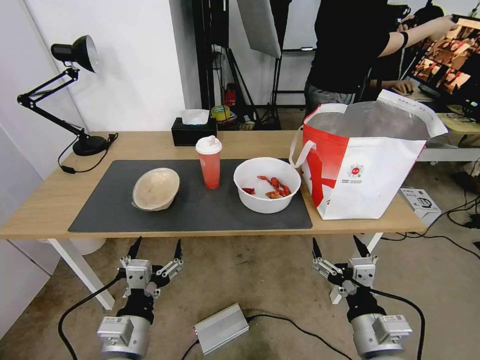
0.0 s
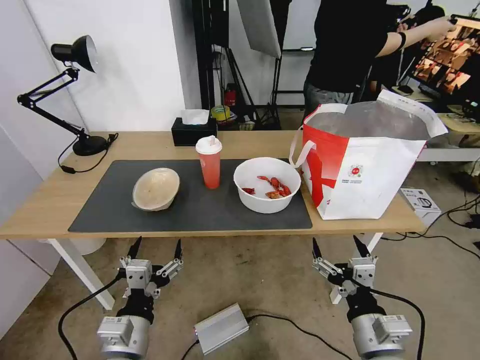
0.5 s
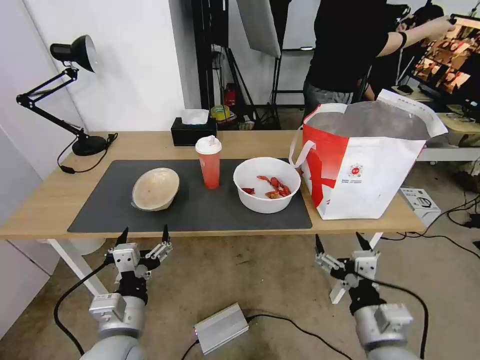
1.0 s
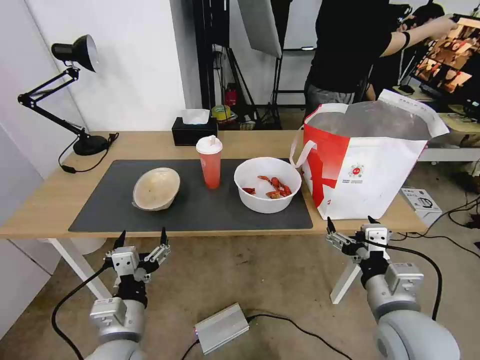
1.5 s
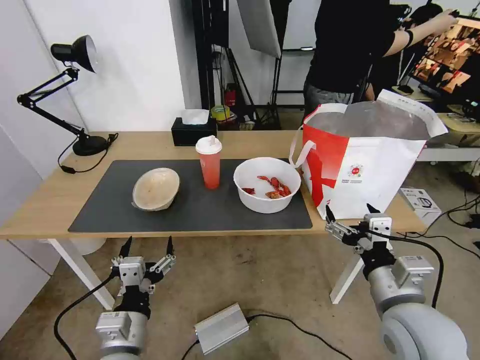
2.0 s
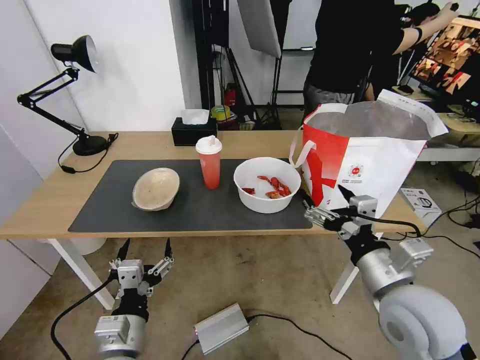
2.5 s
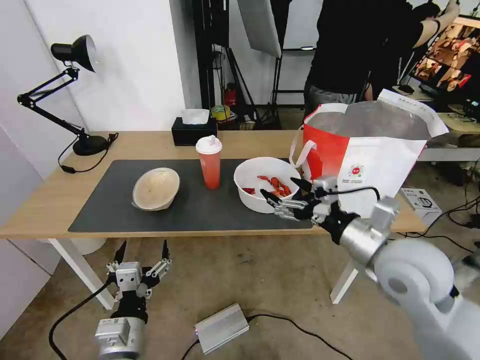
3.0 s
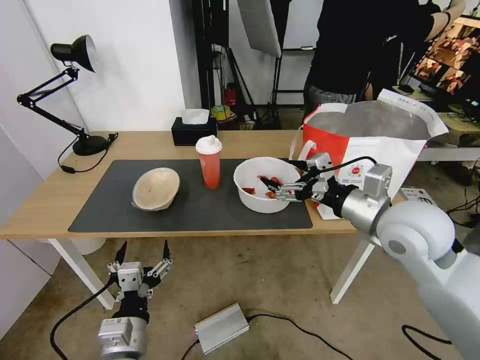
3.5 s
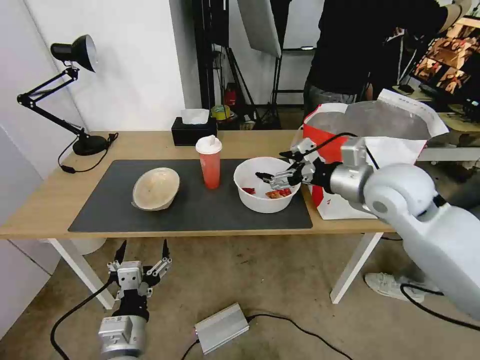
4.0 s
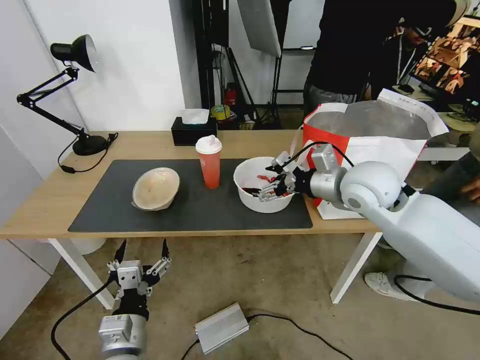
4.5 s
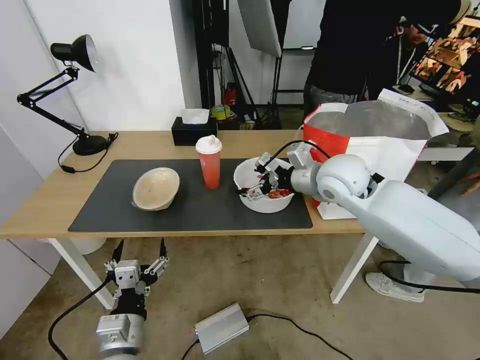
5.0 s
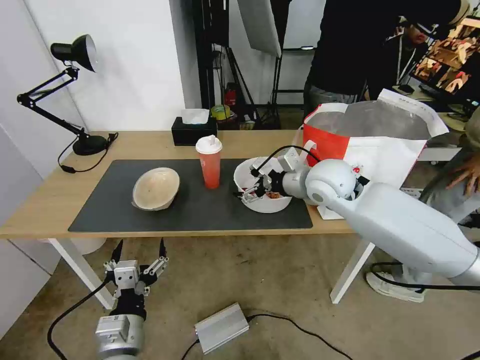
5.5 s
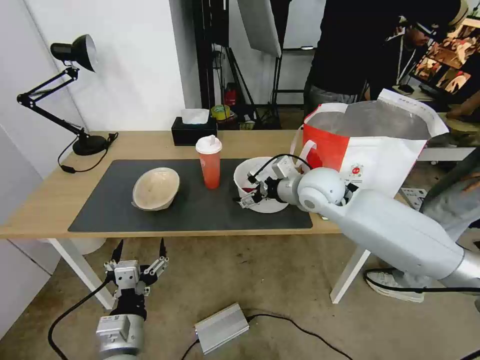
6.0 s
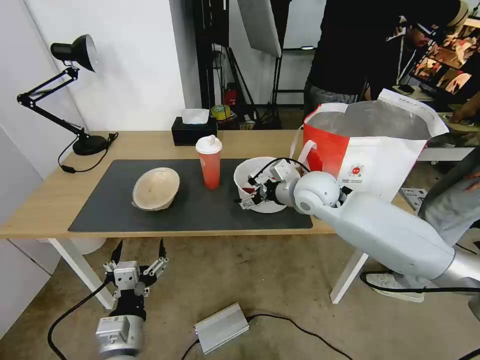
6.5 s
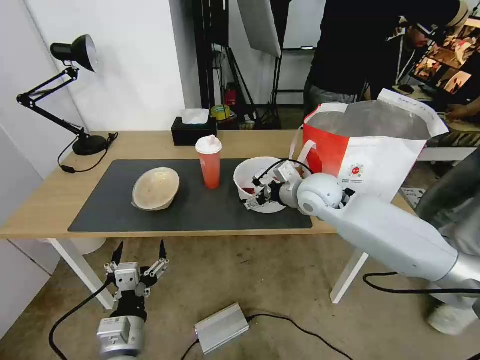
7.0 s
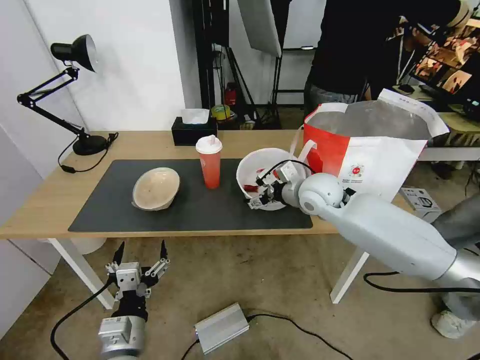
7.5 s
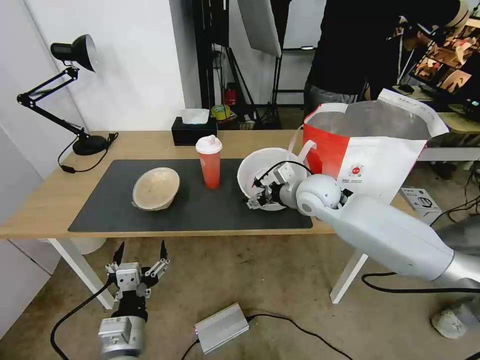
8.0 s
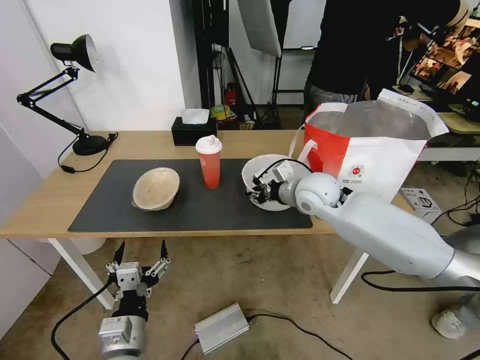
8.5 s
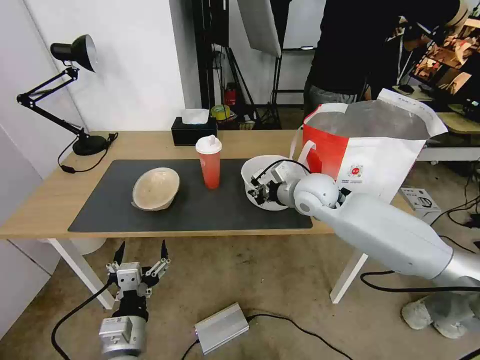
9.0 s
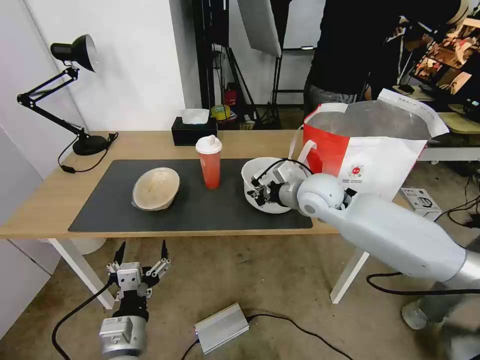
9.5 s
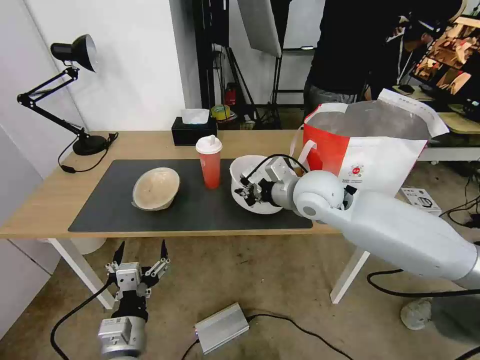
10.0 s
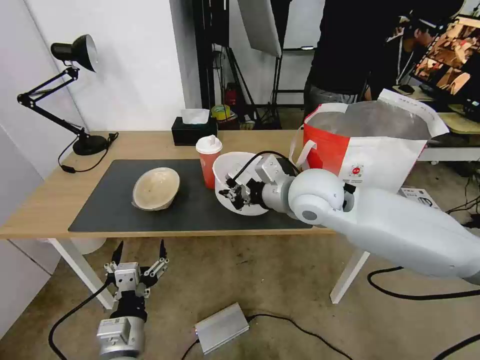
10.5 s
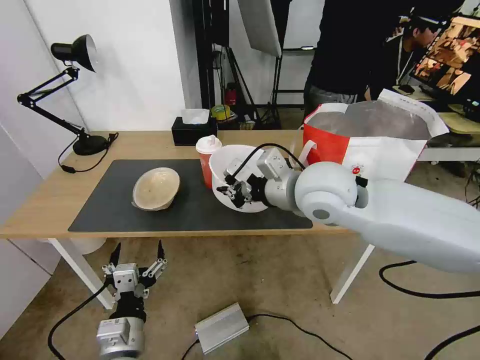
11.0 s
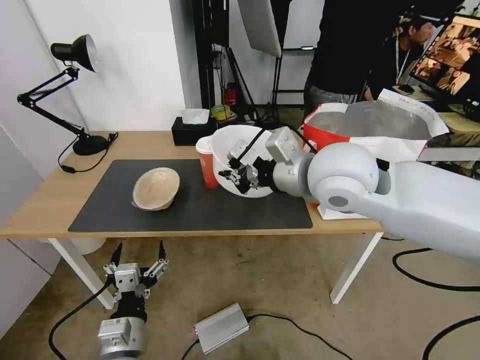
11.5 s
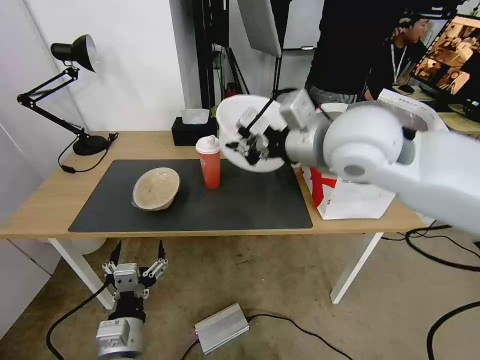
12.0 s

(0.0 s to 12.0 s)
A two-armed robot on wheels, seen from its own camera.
Task of the whole recording: Pick up the trash from the table and place it into the takeout bag.
2.0 s - 4.0 s: The right gripper moves forward and upward, about 25 cm.
4.0 s - 6.0 s: The right gripper shifts about 15 cm to the left, forward and downward.
6.0 s - 8.0 s: The grippers stay close to where they were, moving slightly.
8.0 s - 10.0 s: The right gripper shifts about 5 cm upward, and closes its fingers.
10.0 s - 12.0 s: The right gripper moves upward, roughly 15 cm.

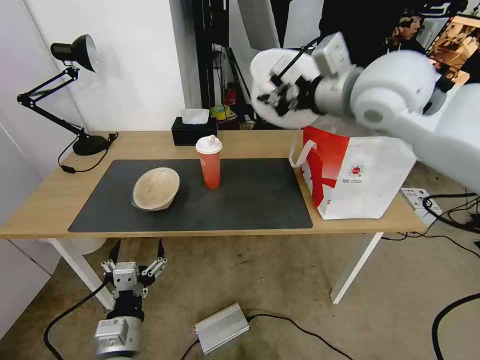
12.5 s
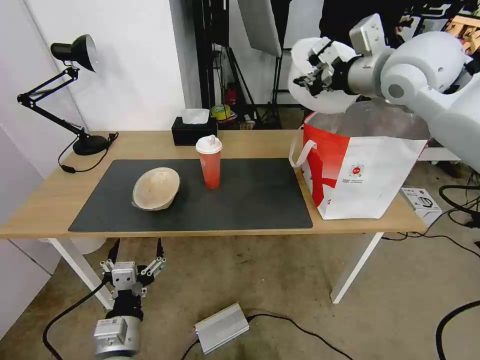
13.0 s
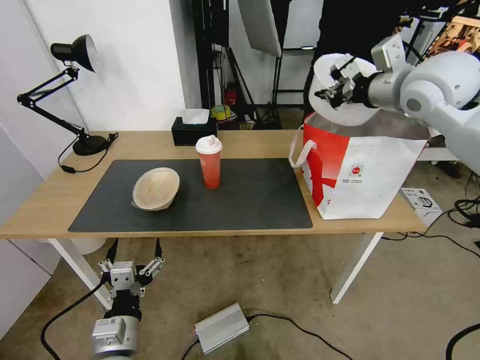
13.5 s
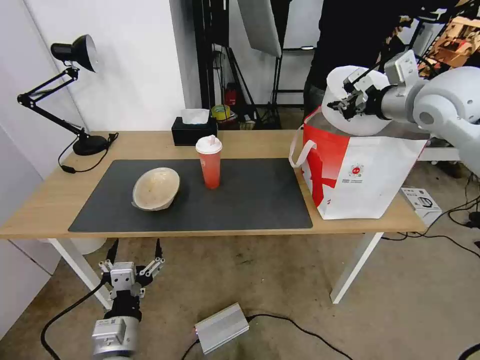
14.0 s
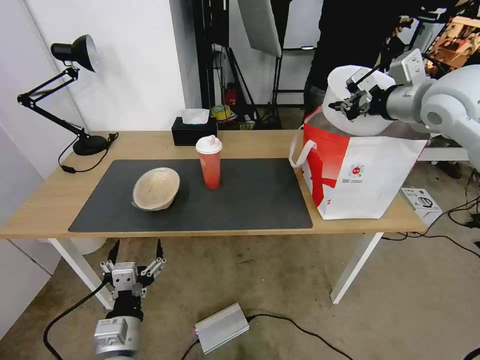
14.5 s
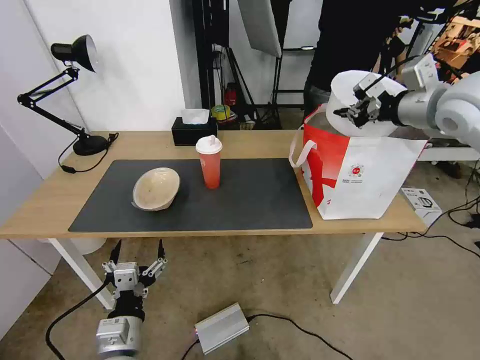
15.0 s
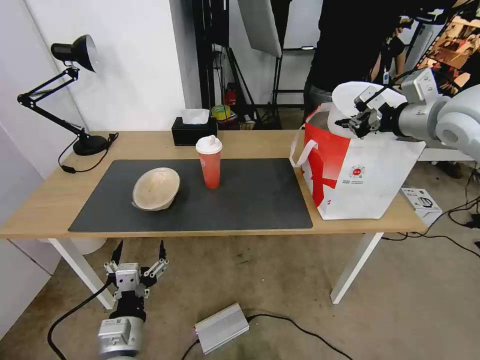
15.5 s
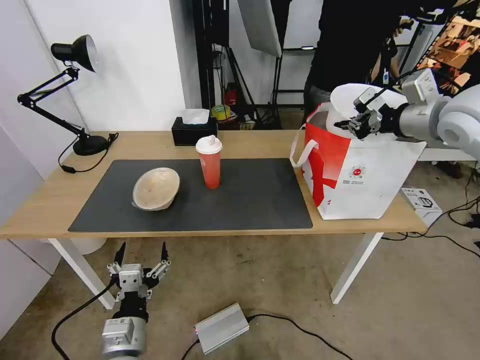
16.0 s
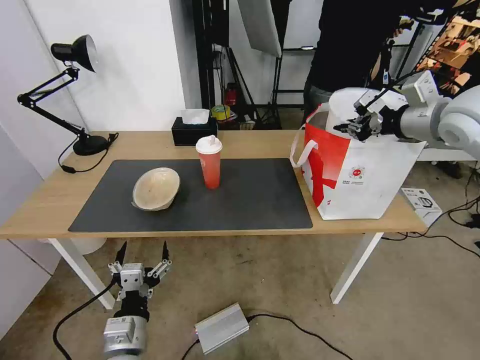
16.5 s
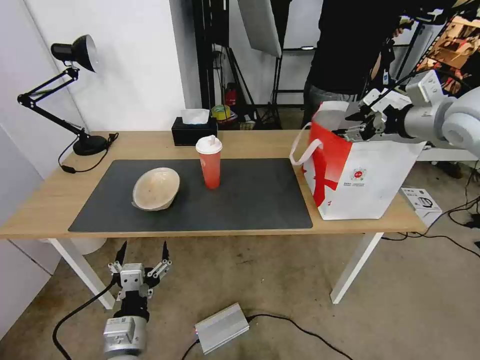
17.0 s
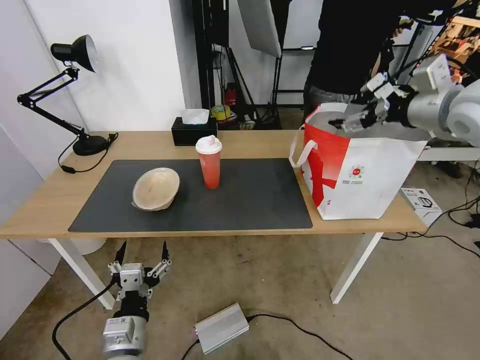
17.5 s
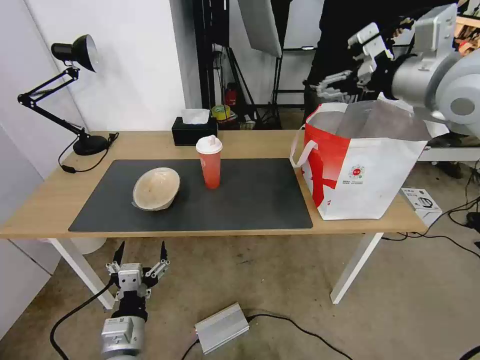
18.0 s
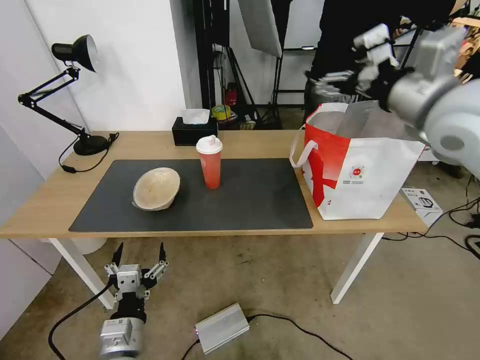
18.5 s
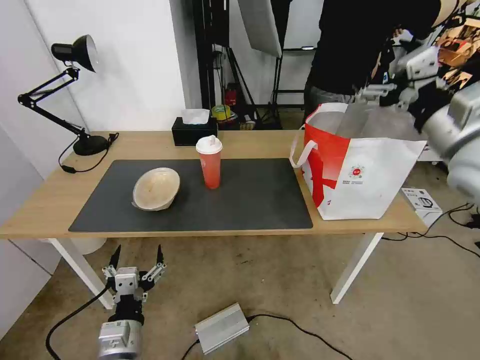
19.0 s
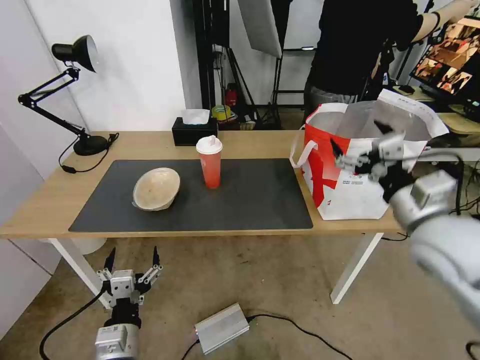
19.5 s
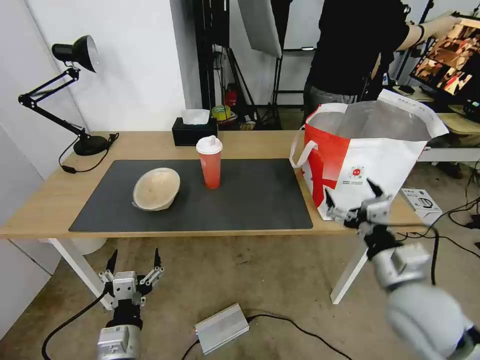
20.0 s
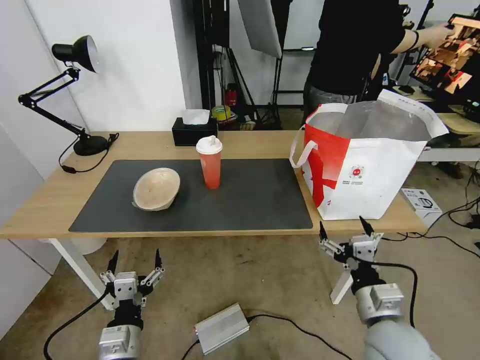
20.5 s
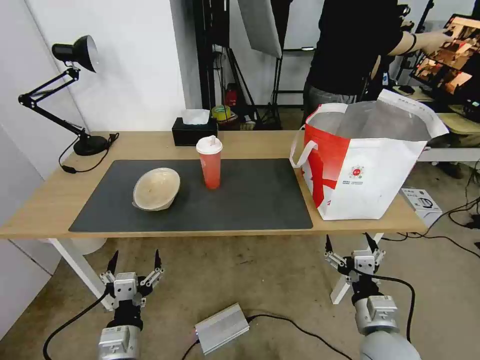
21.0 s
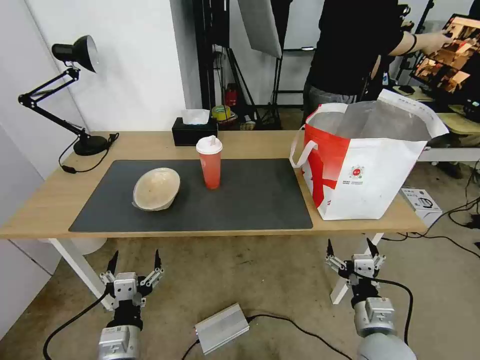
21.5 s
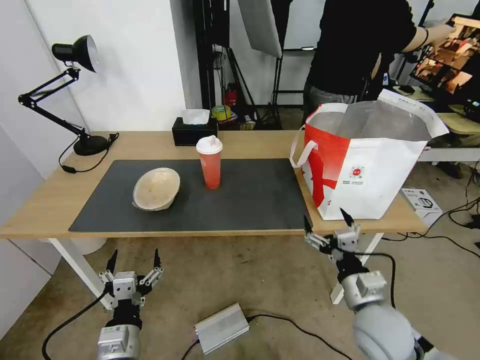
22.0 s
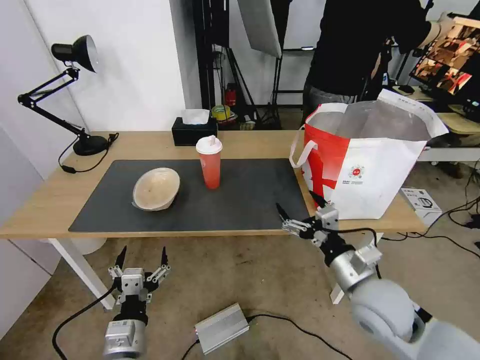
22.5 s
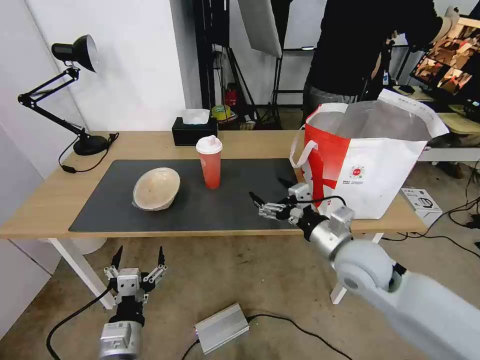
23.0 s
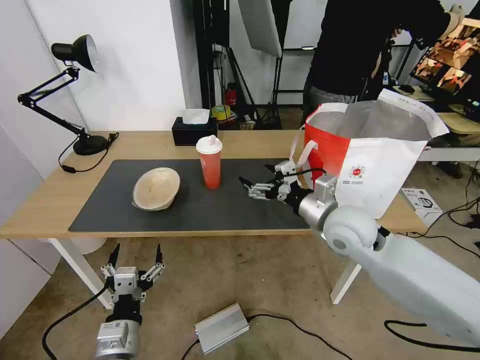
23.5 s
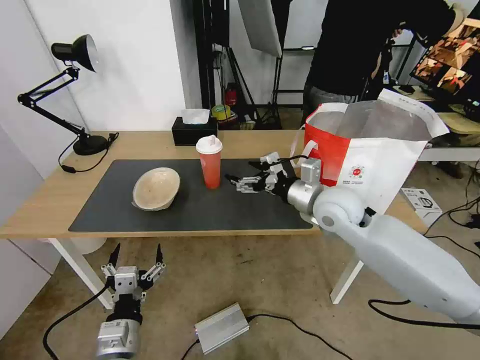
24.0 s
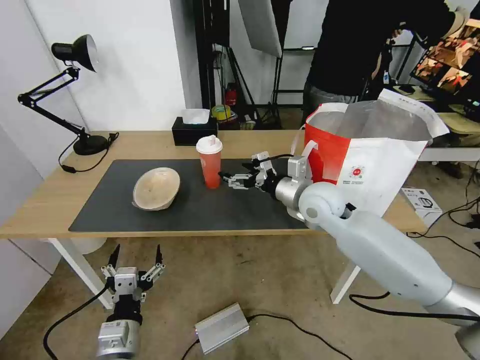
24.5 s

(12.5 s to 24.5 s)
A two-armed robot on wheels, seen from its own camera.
Task of the whole recording: Pick up the trash from the table and place it into the takeout bag.
12.5 s - 14.5 s: The right gripper goes roughly 15 cm to the right.
14.5 s - 16.5 s: There are only small adjustments of the grippers.
16.5 s - 18.5 s: The right gripper goes about 10 cm to the left and backward, and opens.
18.5 s - 20.5 s: The right gripper heads downward and backward, covering about 40 cm.
20.5 s - 22.5 s: The right gripper moves forward, approximately 5 cm.
22.5 s - 24.5 s: The right gripper moves forward, roughly 20 cm.

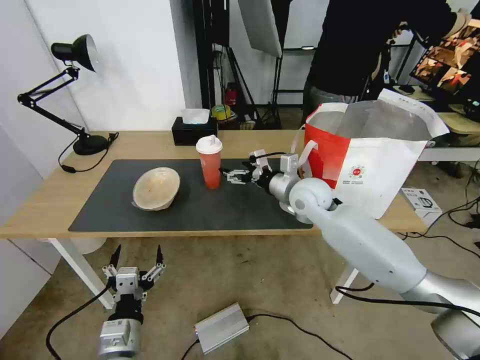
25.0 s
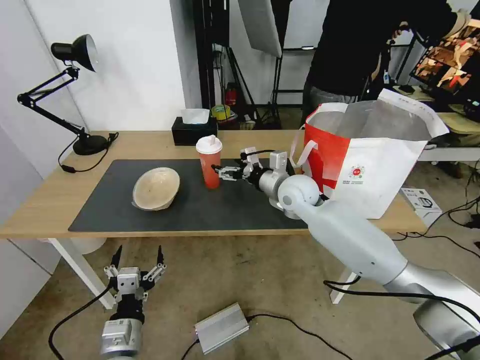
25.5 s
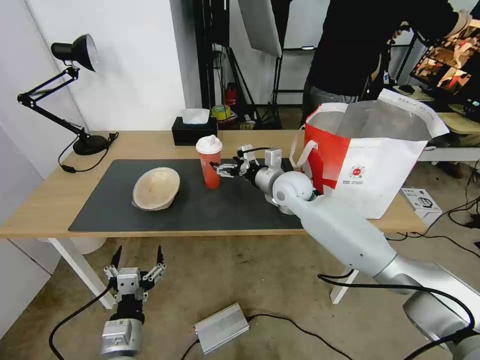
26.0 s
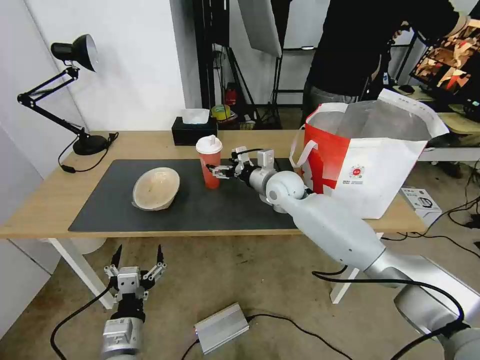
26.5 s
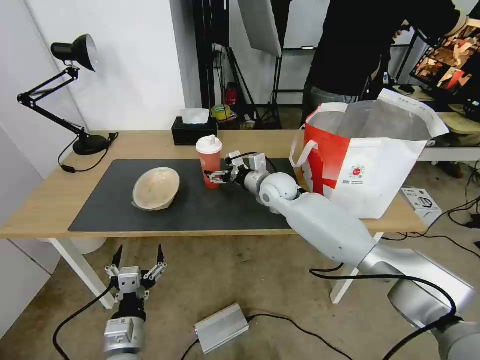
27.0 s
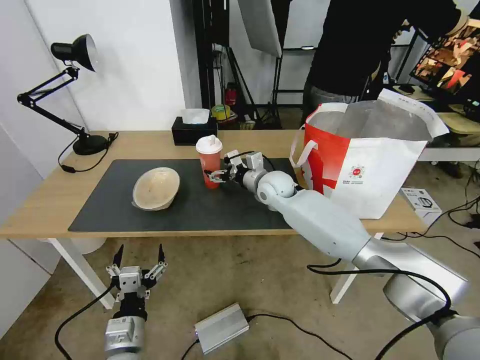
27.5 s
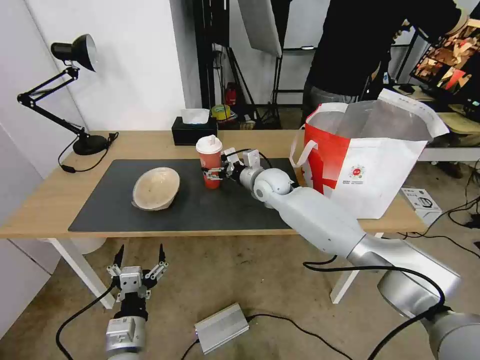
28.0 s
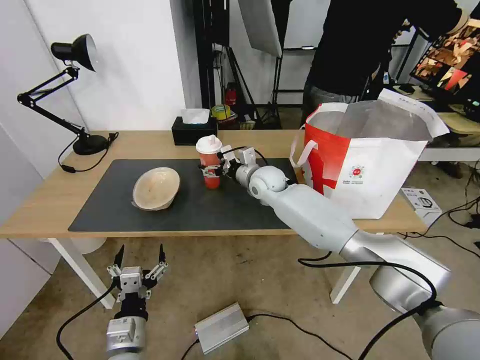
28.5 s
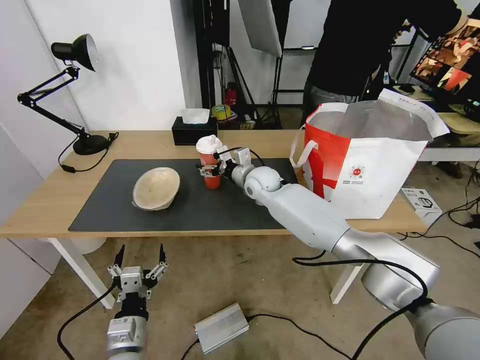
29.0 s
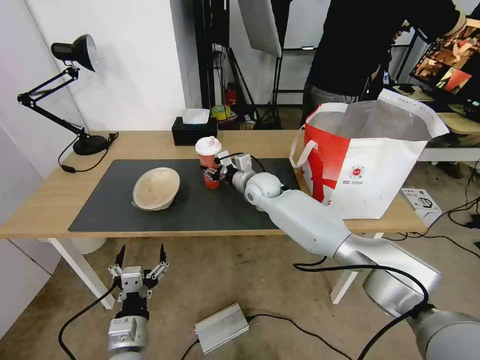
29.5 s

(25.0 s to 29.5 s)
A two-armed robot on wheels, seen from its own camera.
Task of the whole recording: Pick up the trash from the table and place it into the takeout bag.
25.0 s - 27.0 s: The right gripper heads to the left and forward, covering about 10 cm.
27.0 s - 29.5 s: The right gripper closes.
